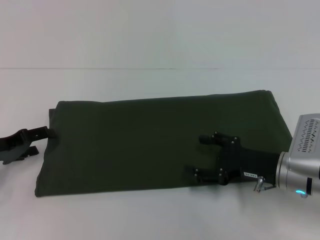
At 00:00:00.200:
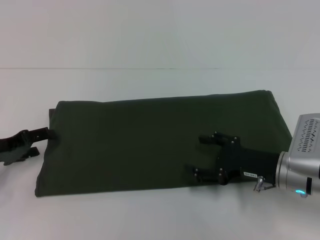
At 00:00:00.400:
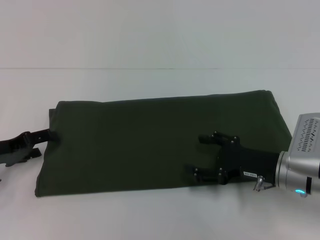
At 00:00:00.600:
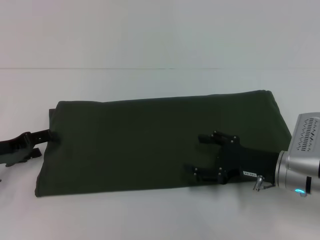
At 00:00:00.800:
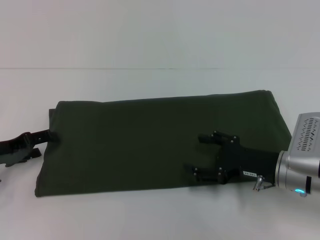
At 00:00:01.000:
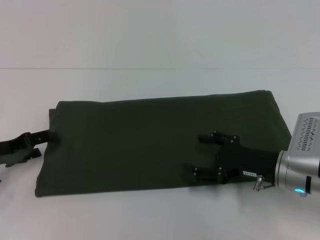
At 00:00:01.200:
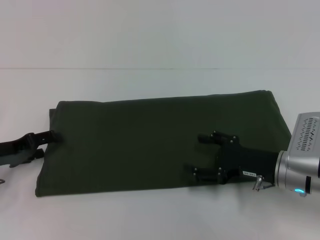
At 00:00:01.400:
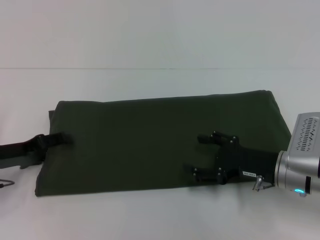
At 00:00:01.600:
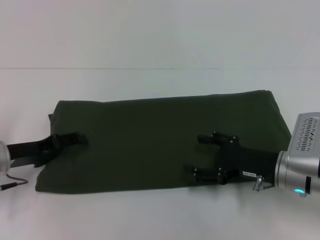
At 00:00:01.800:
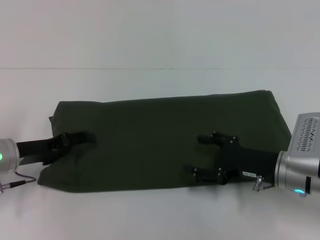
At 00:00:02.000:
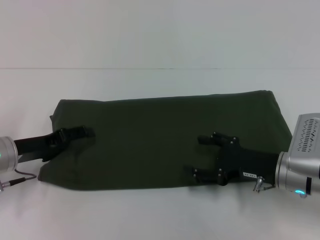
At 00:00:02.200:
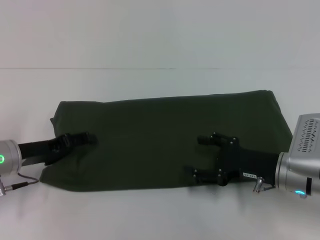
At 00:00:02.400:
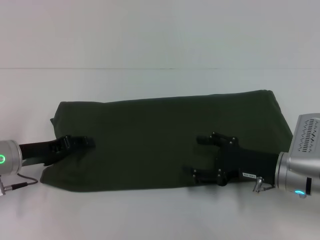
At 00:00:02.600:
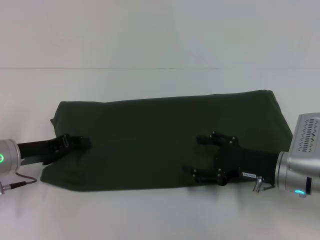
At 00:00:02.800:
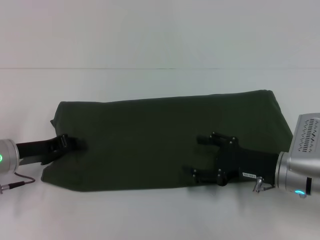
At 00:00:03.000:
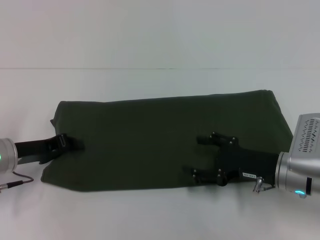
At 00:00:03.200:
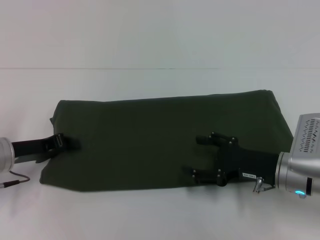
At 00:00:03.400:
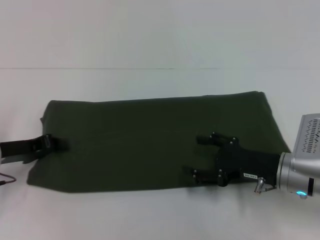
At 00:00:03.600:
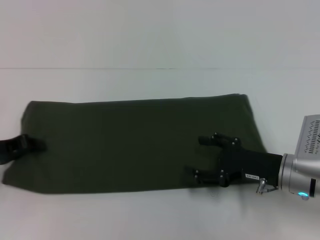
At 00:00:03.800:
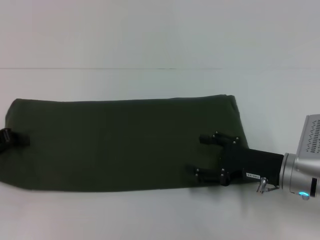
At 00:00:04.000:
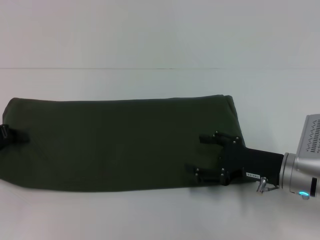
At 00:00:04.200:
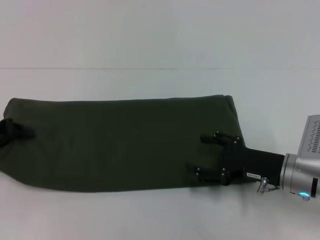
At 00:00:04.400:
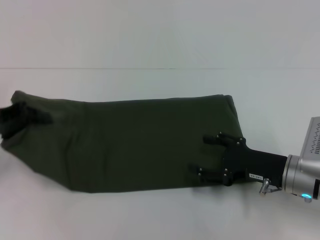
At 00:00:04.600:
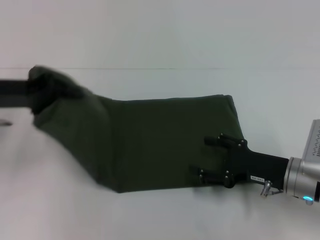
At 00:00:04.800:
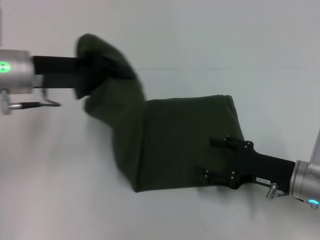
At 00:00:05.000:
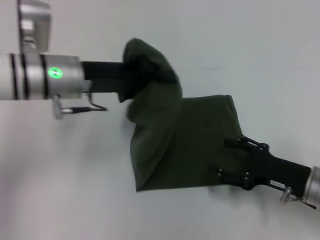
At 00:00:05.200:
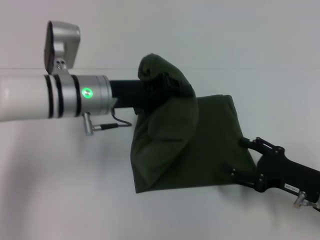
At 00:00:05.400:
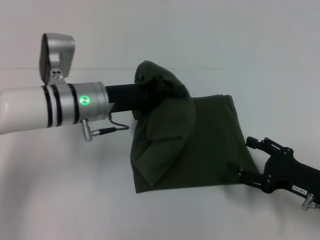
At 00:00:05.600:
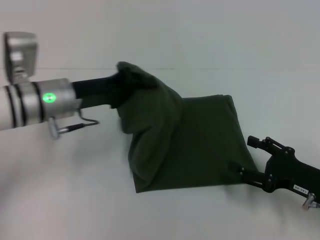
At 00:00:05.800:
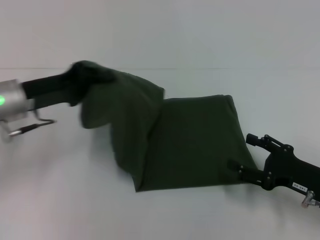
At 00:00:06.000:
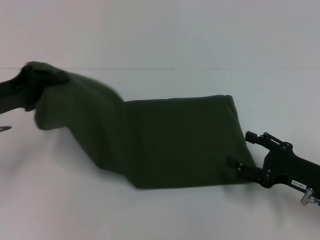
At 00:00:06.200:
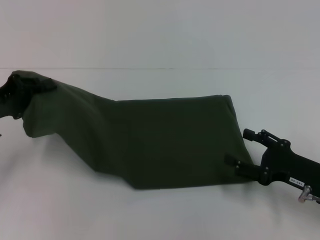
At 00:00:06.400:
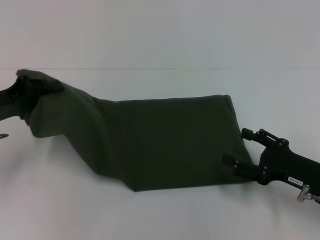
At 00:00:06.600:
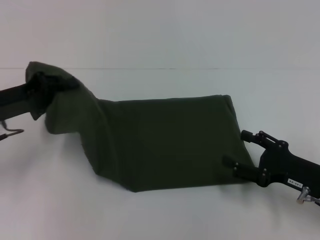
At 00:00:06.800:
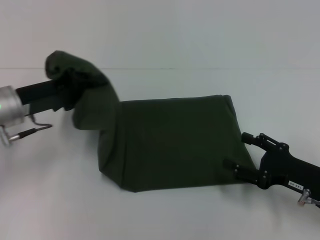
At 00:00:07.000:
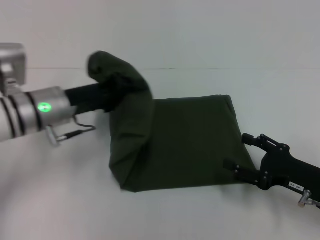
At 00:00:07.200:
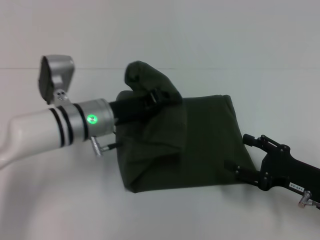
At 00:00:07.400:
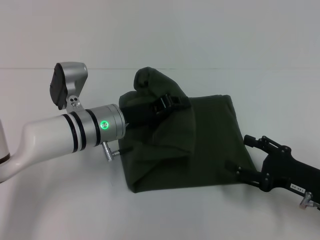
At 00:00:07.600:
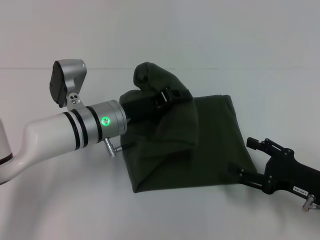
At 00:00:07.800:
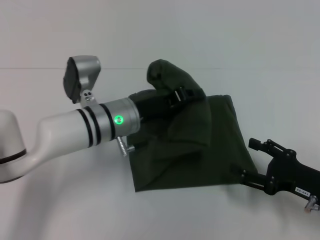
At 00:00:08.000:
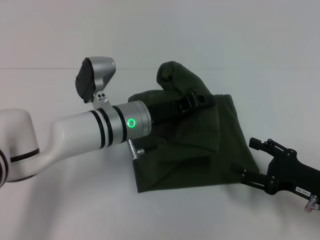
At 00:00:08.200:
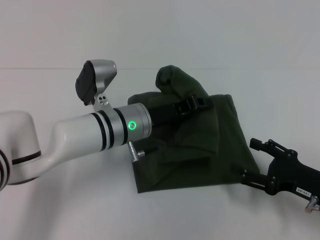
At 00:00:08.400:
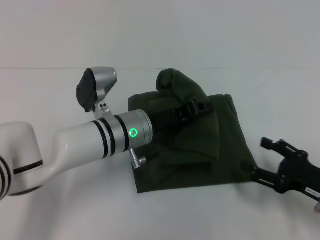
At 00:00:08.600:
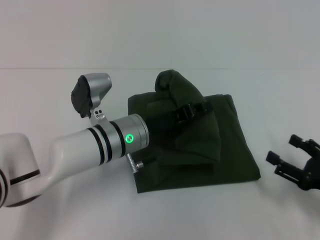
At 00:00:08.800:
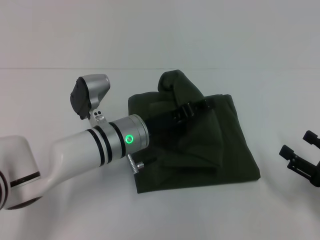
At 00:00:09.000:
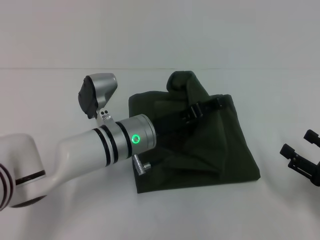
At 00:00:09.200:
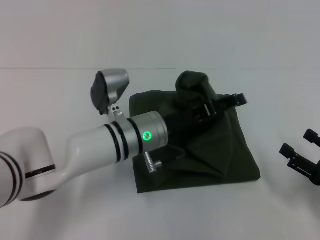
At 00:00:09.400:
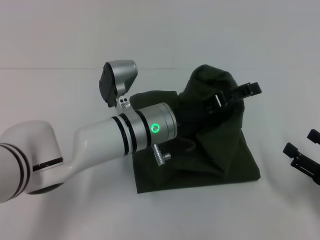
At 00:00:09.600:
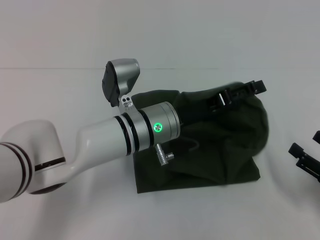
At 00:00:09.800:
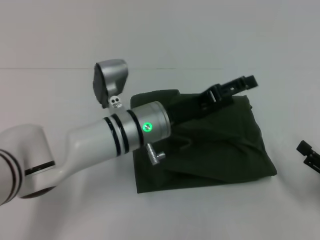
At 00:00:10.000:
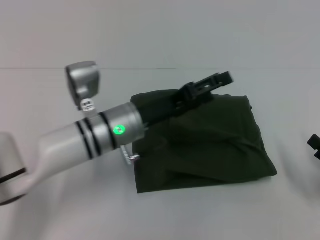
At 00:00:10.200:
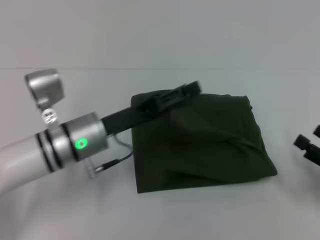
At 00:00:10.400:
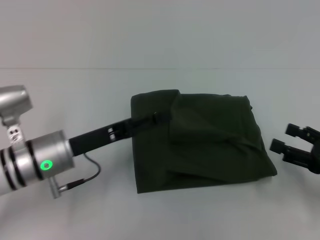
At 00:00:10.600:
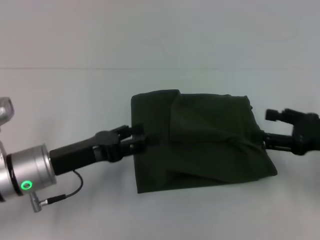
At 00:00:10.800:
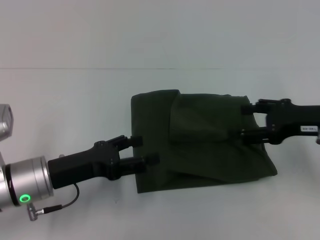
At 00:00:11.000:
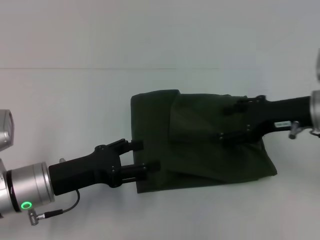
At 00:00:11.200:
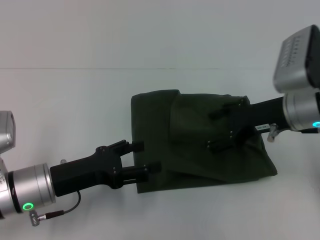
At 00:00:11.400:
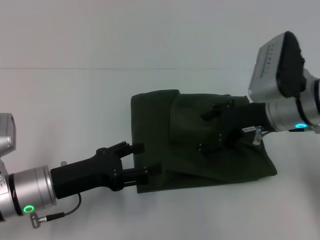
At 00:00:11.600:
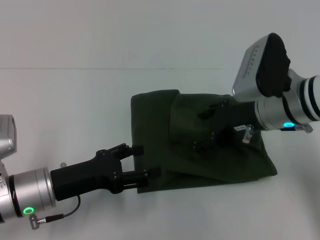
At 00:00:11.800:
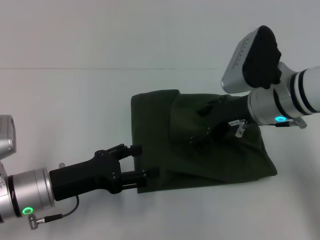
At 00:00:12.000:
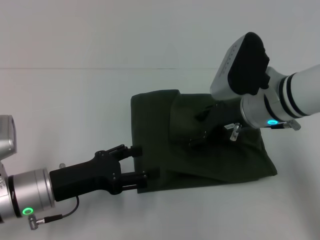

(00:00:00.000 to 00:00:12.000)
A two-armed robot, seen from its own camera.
Step, 00:00:00.000 - 00:00:09.800: Fold the clothes with your left hand.
00:00:00.000 - 00:00:01.600: The grippers stay close to where they were, moving slightly.
00:00:01.600 - 00:00:03.000: The left gripper closes.
00:00:03.000 - 00:00:04.400: The left gripper heads upward and to the left, covering some 10 cm.
00:00:04.400 - 00:00:06.000: The left gripper goes to the right and returns, about 20 cm each way; the right gripper goes approximately 5 cm to the right.
00:00:06.000 - 00:00:07.600: The left gripper moves to the right, some 20 cm.
00:00:07.600 - 00:00:09.000: The right gripper ends up approximately 5 cm from where it was.
00:00:09.000 - 00:00:10.400: The left gripper moves to the left, about 10 cm, and opens; the right gripper ends up some 5 cm from where it was.
00:00:10.400 - 00:00:12.000: The right gripper travels to the left and forward by approximately 20 cm; the left gripper moves roughly 5 cm.

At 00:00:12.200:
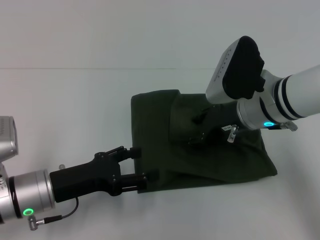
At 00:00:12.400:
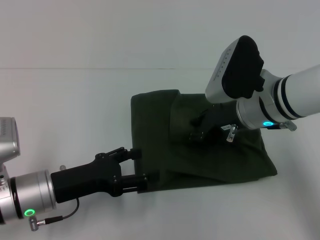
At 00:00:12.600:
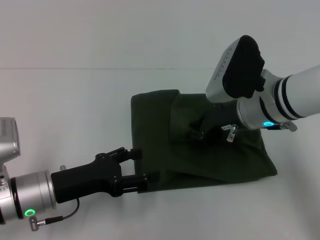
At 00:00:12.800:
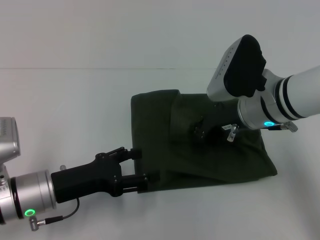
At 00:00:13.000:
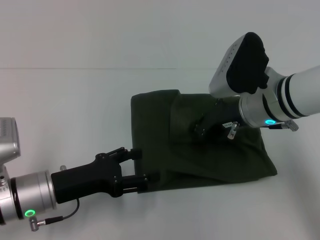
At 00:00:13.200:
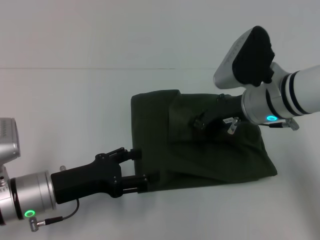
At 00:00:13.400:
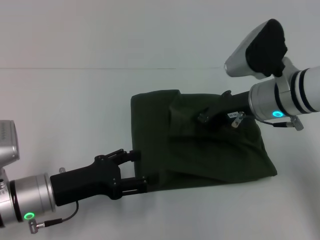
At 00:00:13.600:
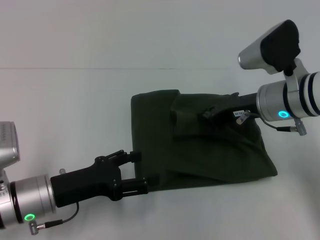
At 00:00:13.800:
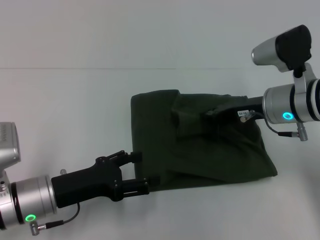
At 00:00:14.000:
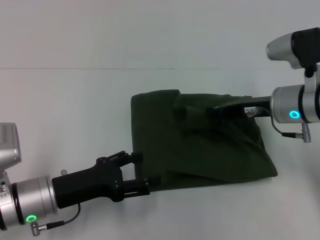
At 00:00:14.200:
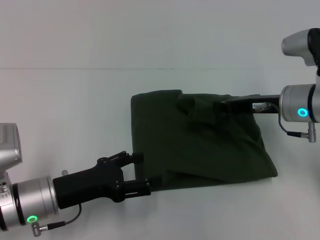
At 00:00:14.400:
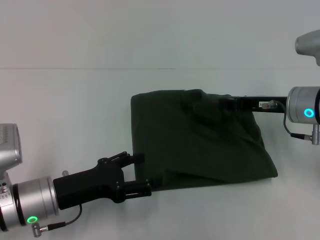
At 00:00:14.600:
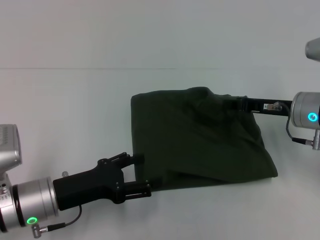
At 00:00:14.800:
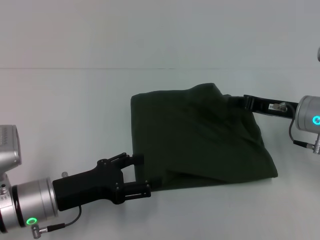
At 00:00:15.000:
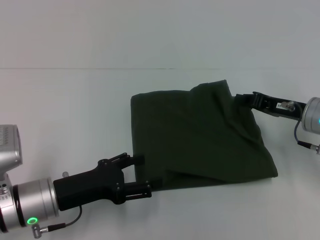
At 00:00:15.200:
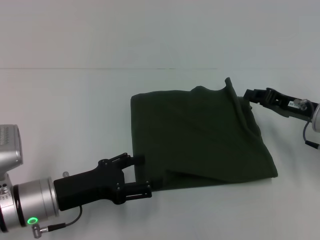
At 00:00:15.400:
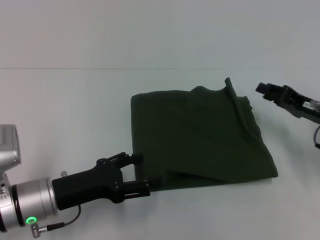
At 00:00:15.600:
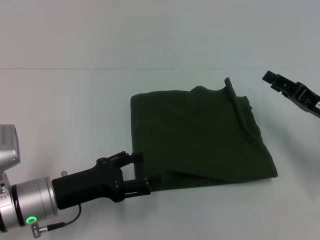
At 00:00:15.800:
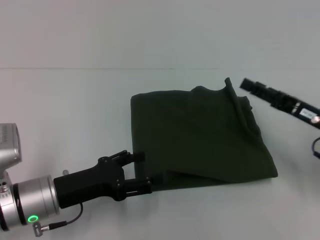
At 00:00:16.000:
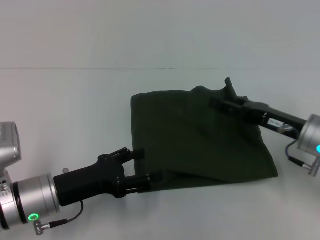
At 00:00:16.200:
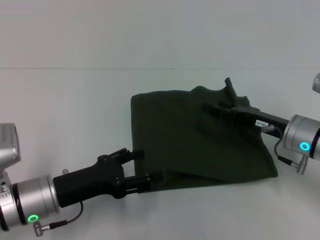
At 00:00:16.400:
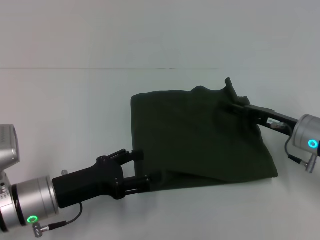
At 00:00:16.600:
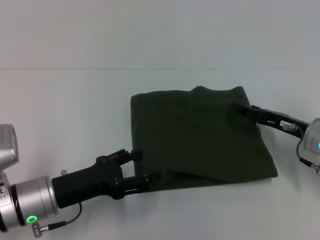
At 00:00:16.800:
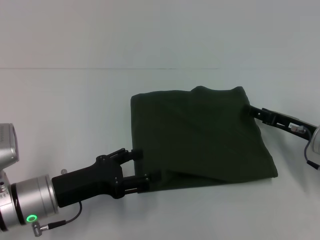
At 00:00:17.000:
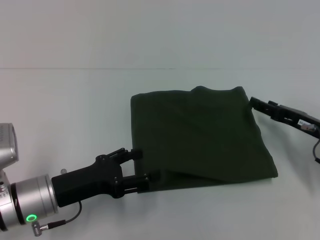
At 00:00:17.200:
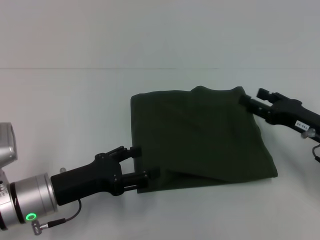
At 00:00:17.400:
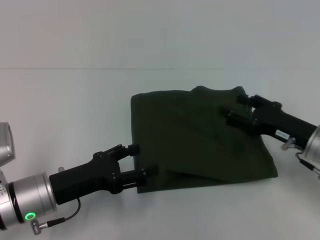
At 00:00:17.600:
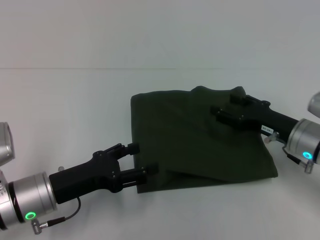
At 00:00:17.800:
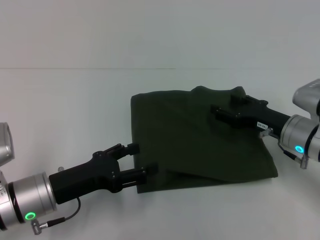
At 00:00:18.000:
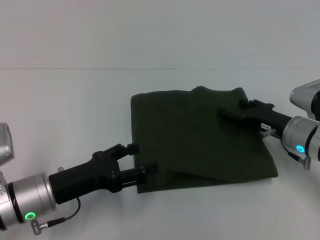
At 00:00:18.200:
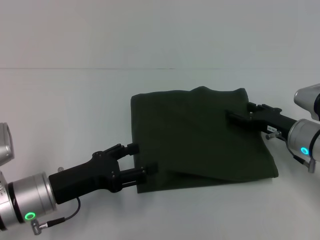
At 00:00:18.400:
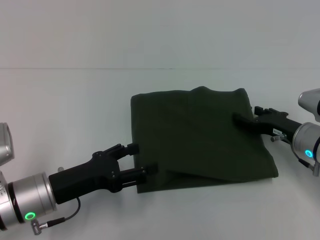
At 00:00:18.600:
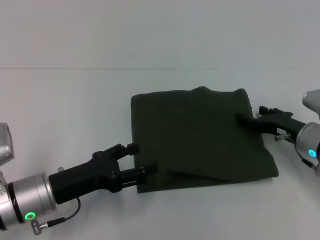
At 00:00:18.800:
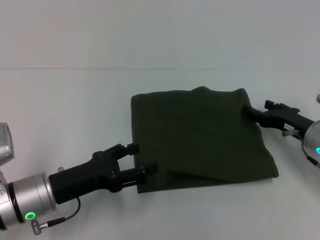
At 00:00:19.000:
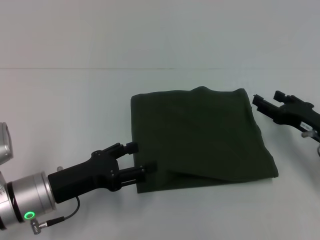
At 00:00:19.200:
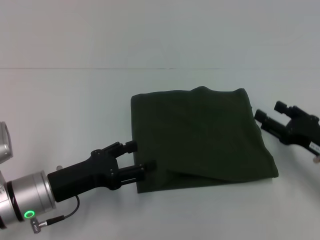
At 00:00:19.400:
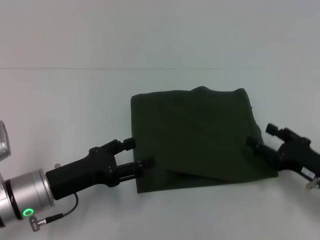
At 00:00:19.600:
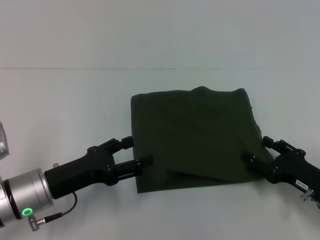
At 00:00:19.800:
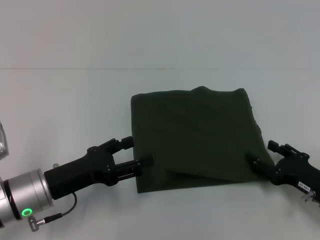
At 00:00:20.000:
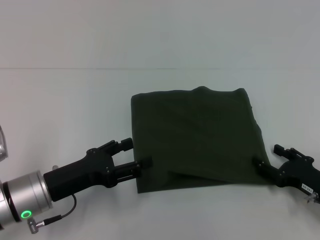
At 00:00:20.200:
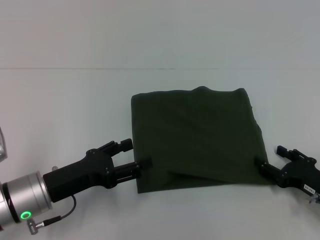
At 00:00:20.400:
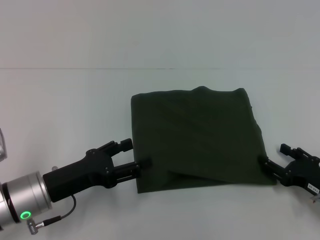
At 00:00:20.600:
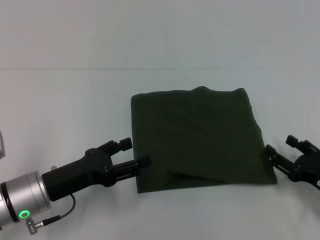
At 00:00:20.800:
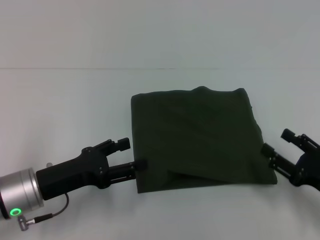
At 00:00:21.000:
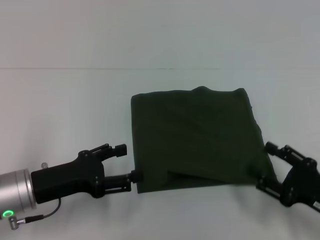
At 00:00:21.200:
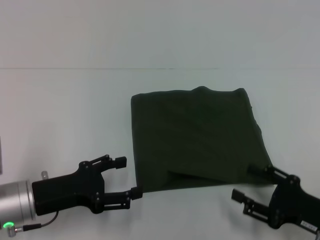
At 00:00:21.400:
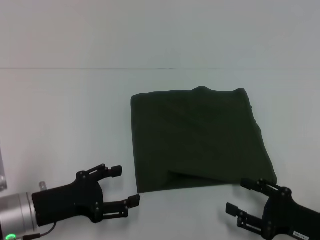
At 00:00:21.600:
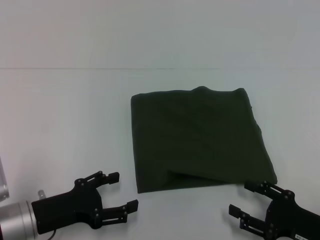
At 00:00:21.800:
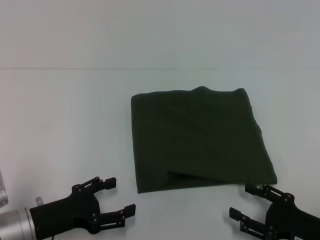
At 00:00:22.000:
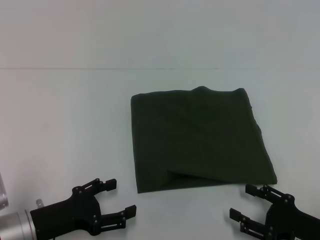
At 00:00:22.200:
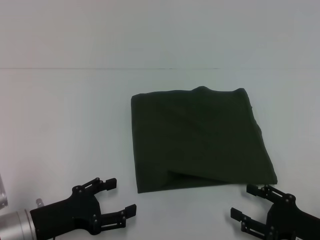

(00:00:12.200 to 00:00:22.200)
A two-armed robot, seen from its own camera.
00:00:12.200 - 00:00:13.600: The right gripper closes its fingers.
00:00:13.600 - 00:00:15.000: The right gripper travels to the right and downward by roughly 10 cm.
00:00:15.000 - 00:00:16.400: The right gripper opens its fingers.
00:00:18.000 - 00:00:19.400: The right gripper travels backward and to the right by about 10 cm.
00:00:19.400 - 00:00:20.800: There are only small adjustments of the grippers.
00:00:20.800 - 00:00:22.200: The right gripper shifts by roughly 5 cm, while the left gripper ends up roughly 5 cm from where it was.
